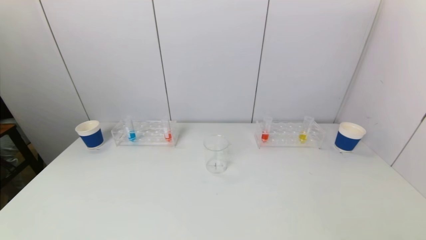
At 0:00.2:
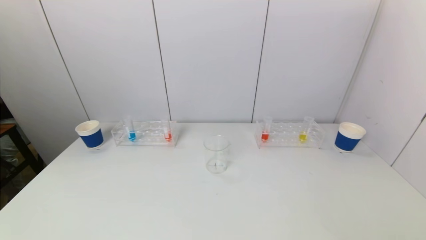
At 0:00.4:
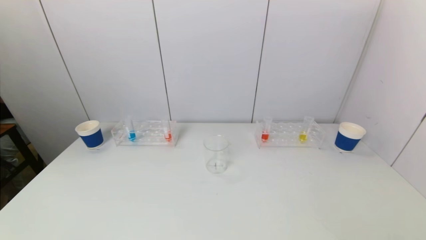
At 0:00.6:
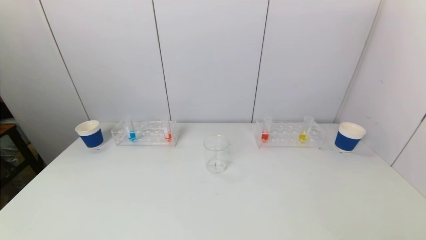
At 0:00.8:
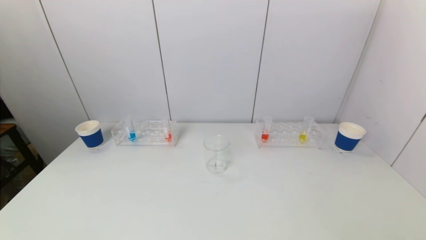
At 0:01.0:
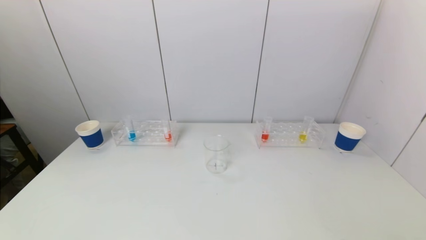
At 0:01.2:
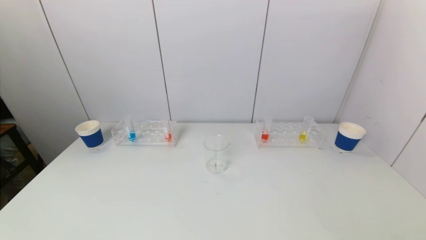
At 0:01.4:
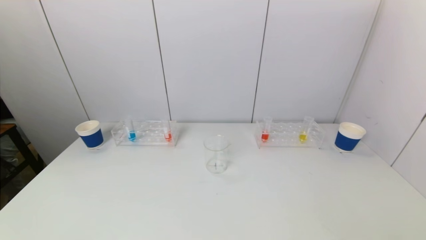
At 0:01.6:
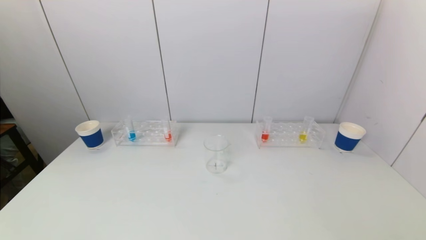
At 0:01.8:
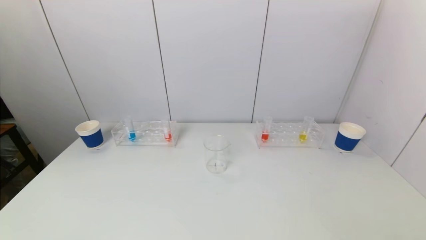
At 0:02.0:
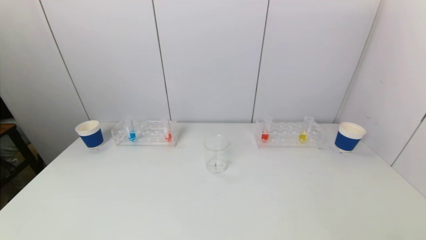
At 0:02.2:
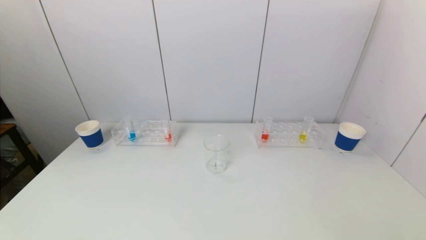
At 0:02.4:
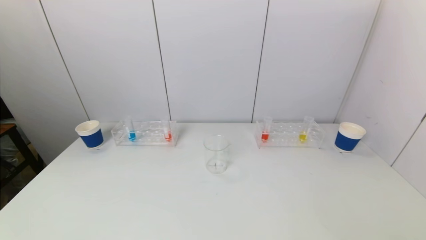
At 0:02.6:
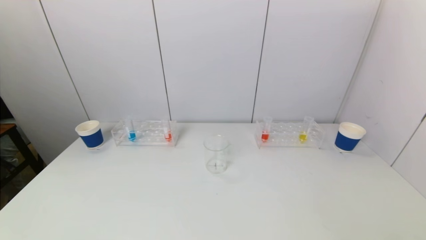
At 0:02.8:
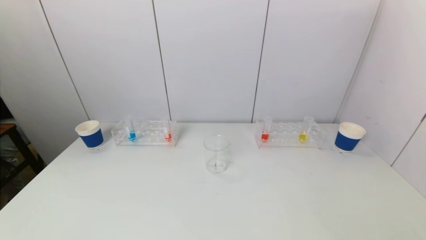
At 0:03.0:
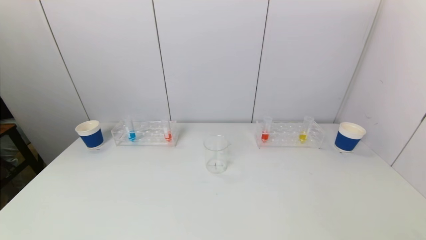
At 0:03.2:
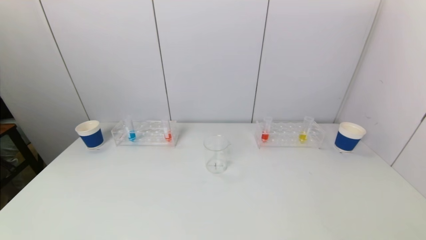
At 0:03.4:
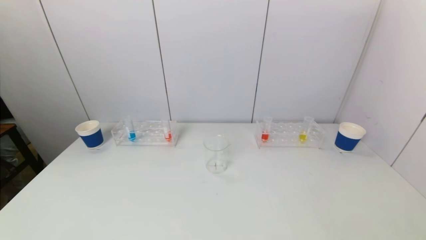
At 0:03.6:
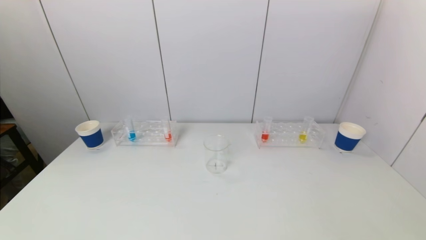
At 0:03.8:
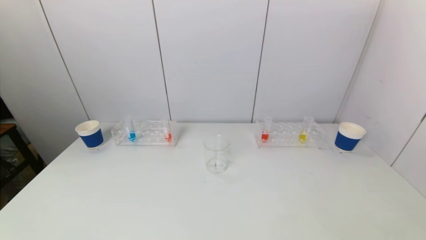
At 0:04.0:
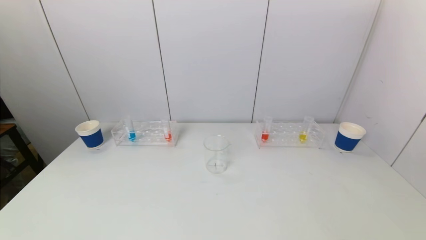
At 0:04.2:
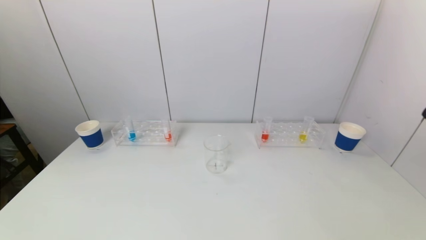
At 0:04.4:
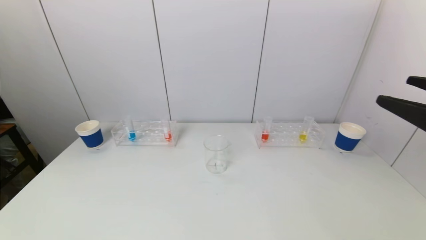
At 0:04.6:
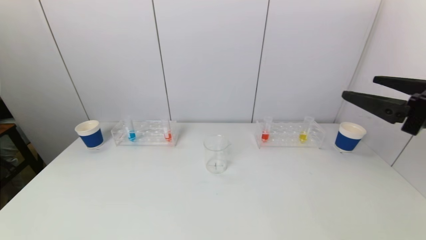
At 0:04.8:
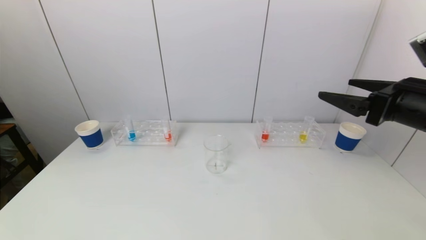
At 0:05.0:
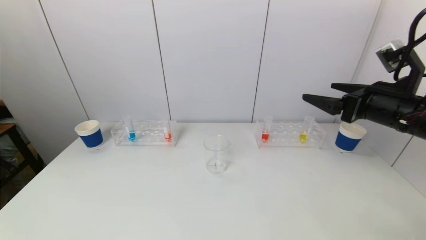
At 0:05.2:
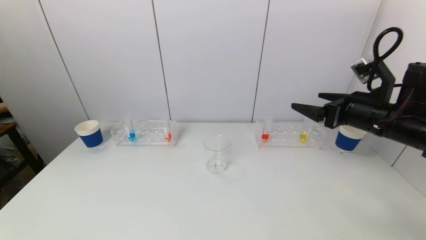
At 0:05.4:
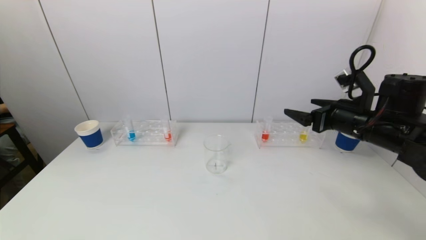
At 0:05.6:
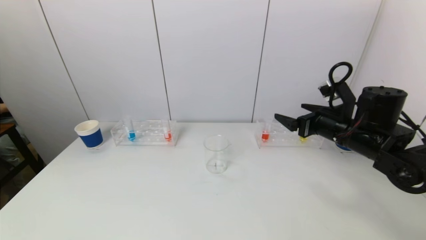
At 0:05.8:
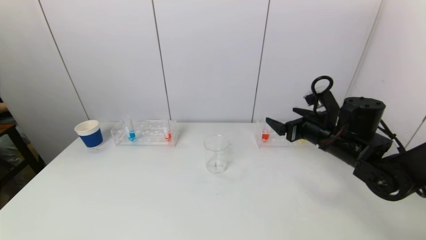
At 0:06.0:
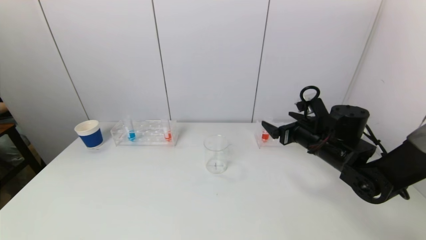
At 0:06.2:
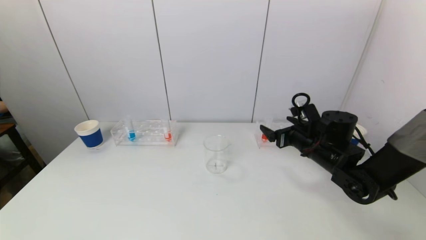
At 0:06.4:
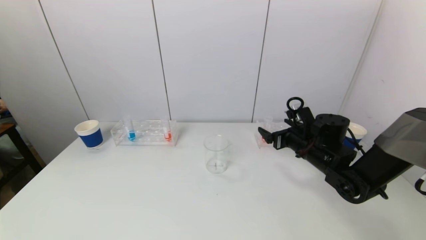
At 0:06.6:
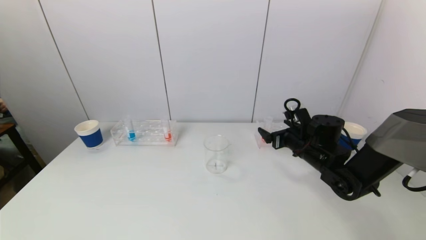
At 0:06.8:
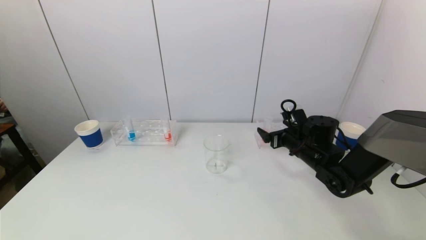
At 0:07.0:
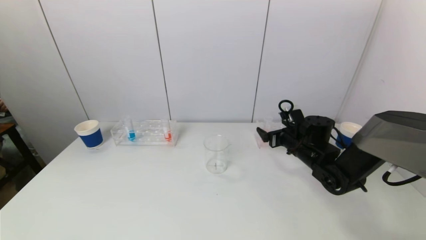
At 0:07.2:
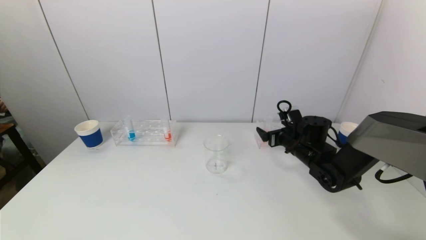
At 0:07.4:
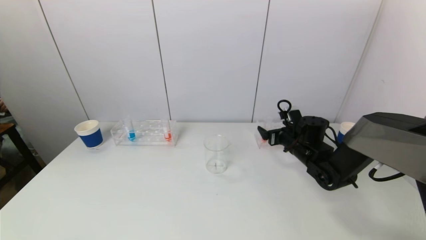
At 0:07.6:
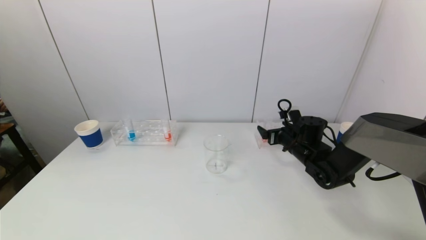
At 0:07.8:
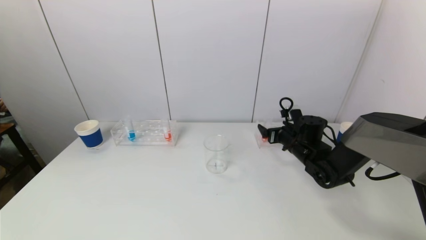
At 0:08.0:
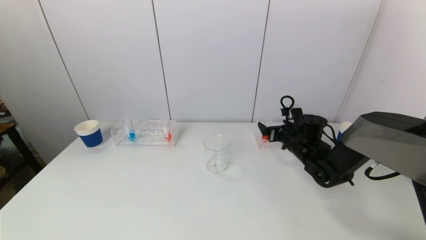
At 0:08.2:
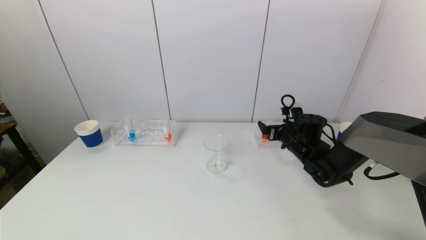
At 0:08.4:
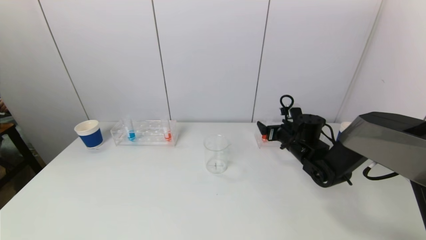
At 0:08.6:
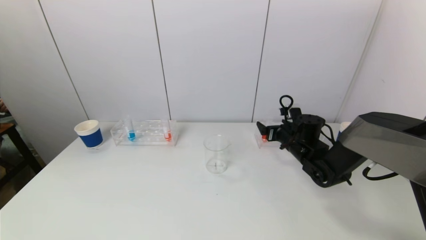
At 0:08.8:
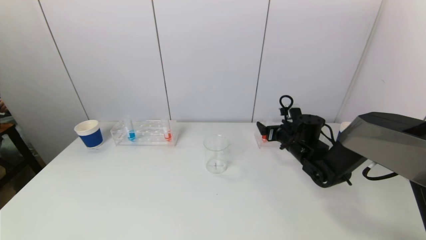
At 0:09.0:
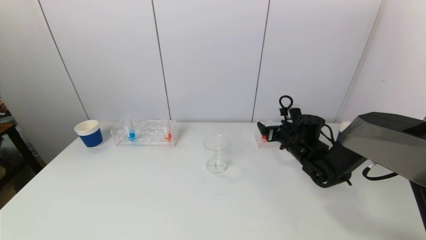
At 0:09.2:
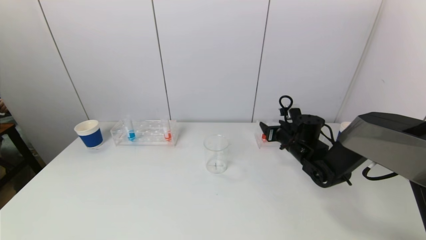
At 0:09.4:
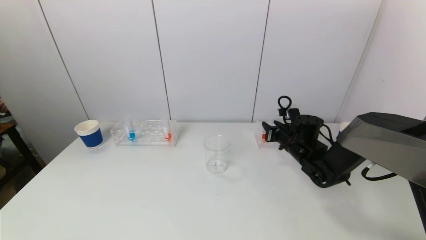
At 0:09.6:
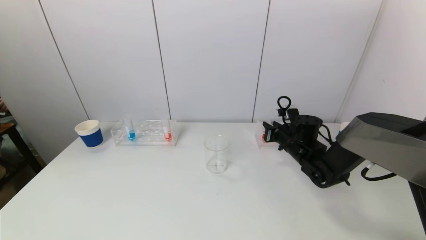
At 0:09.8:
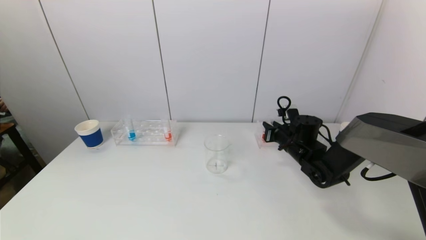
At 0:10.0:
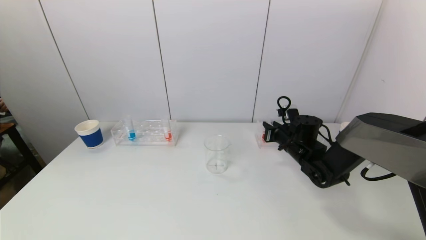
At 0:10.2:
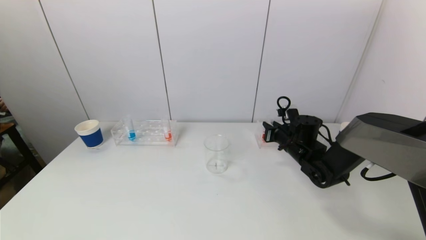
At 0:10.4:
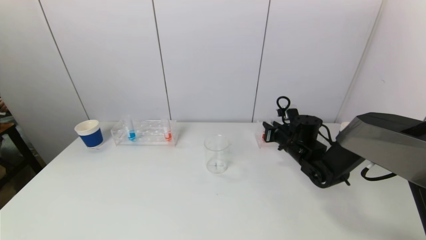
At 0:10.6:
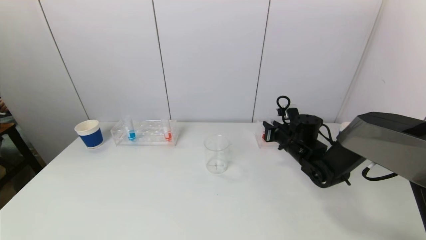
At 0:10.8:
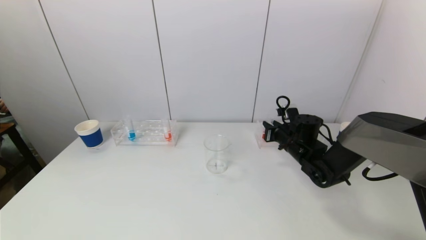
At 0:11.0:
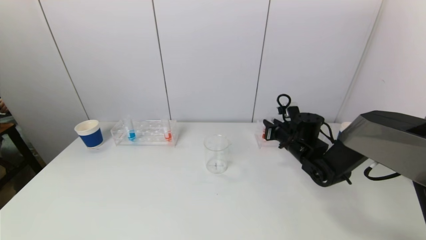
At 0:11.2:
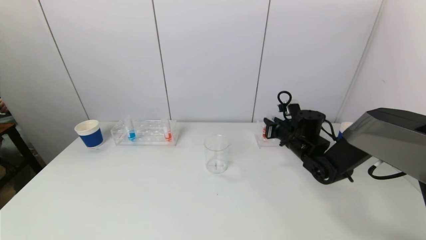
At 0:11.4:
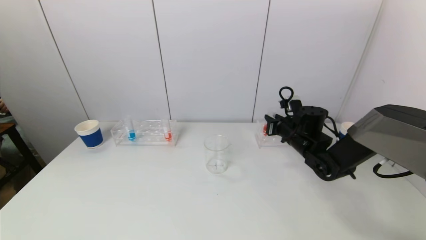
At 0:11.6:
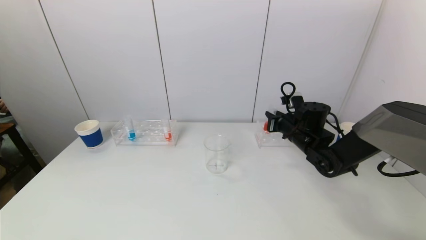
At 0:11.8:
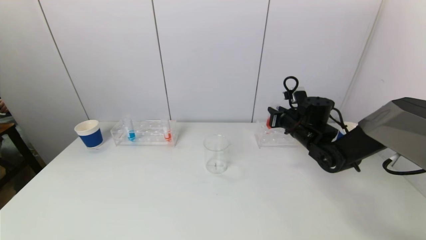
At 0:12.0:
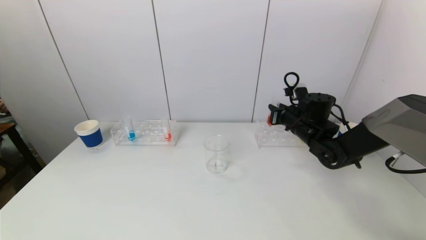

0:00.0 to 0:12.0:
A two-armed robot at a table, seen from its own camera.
Task of the whole recording: pick up a test tube with pigment on left test tube rack and a test tube with pigment on right test tube rack by grippers and pour them into the beaker.
Step, 0:00.0 to 0:09.8: Grasp the red reagent with the right gripper.
0:00.0 to 0:01.6: Neither gripper changes place.
0:03.0 to 0:04.4: The right gripper moves forward and upward, approximately 25 cm.
0:04.4 to 0:06.0: The right gripper travels forward, downward and to the left by about 25 cm.
0:06.0 to 0:07.6: The right gripper is displaced forward and downward by some 10 cm.
0:07.6 to 0:09.0: The grippers stay close to where they were, moving slightly.
0:09.0 to 0:10.4: The right gripper closes up.
0:10.4 to 0:12.0: The right gripper heads upward, covering roughly 5 cm.

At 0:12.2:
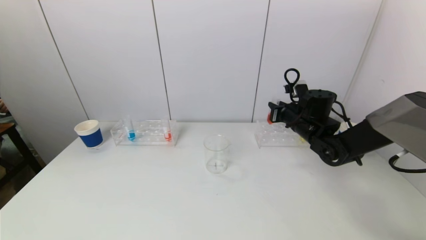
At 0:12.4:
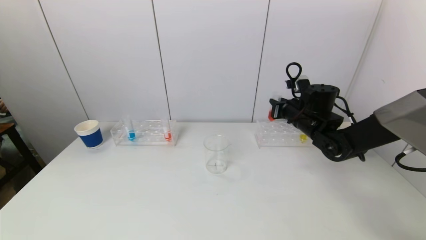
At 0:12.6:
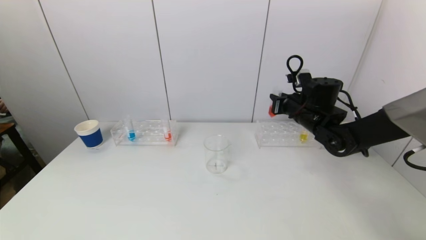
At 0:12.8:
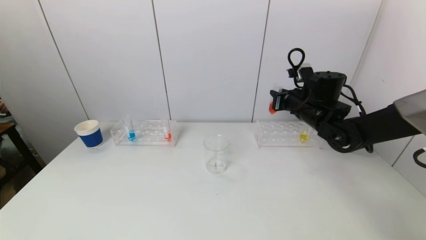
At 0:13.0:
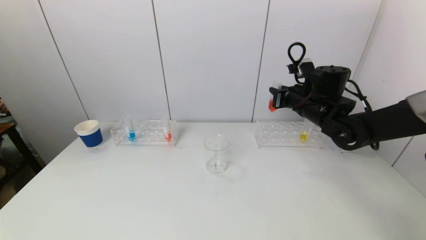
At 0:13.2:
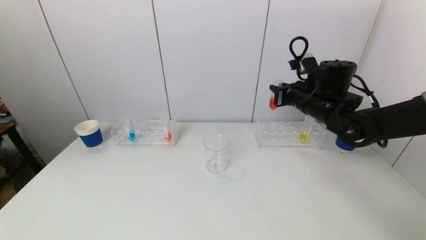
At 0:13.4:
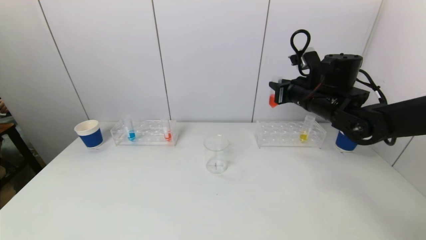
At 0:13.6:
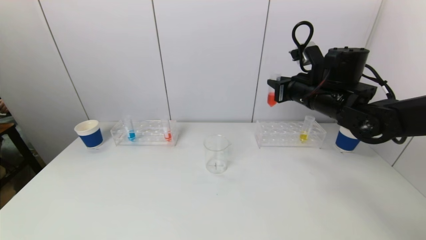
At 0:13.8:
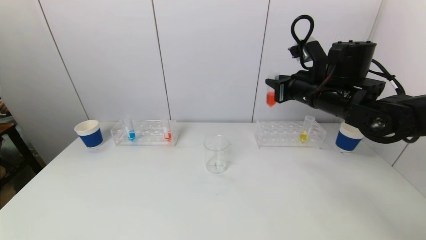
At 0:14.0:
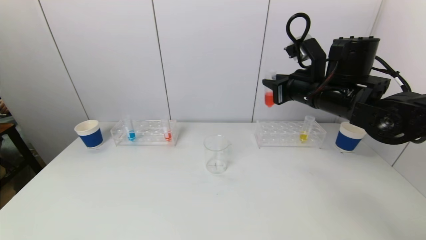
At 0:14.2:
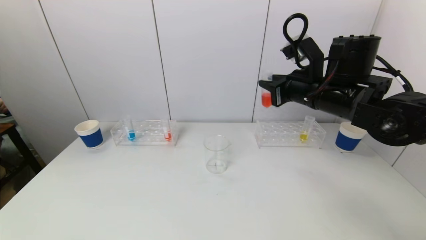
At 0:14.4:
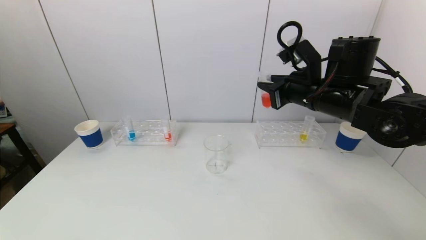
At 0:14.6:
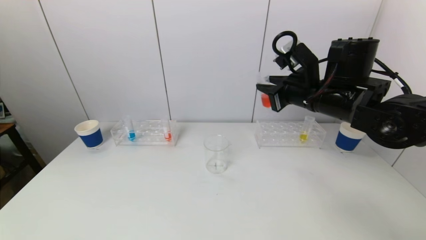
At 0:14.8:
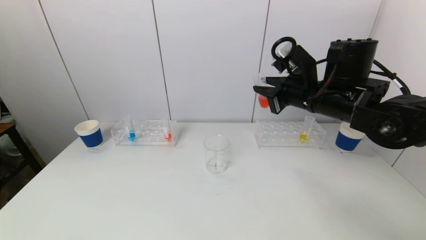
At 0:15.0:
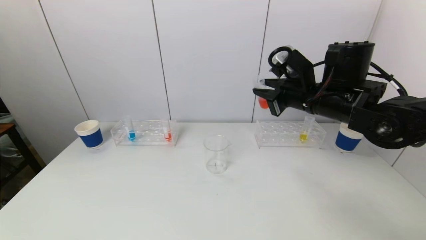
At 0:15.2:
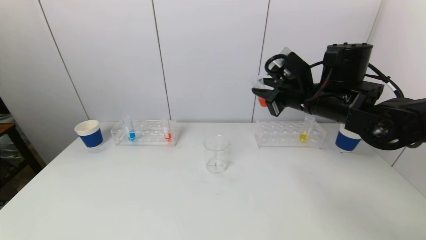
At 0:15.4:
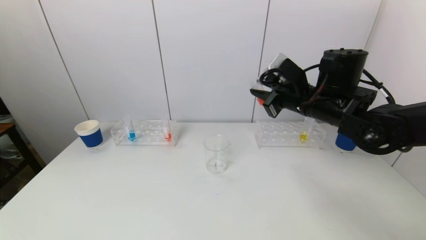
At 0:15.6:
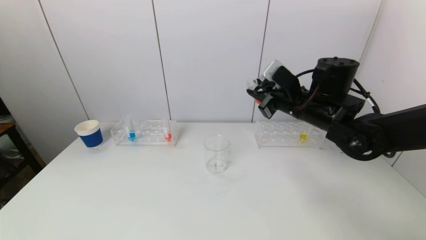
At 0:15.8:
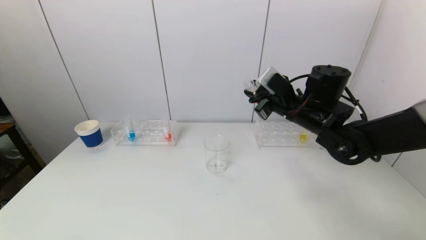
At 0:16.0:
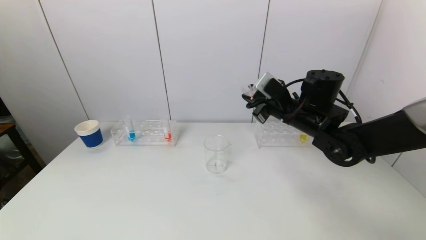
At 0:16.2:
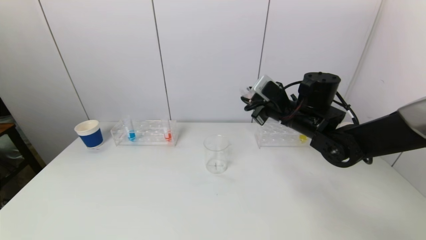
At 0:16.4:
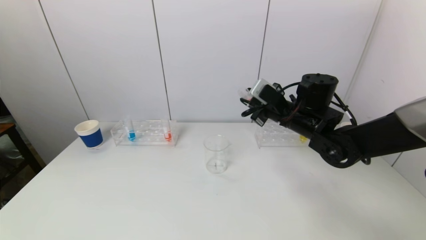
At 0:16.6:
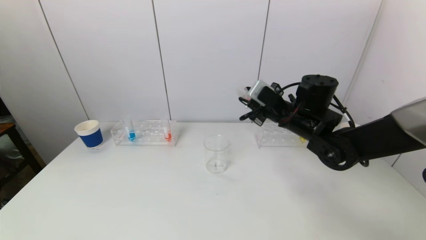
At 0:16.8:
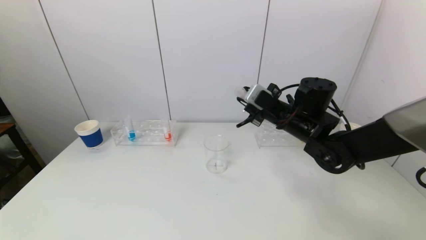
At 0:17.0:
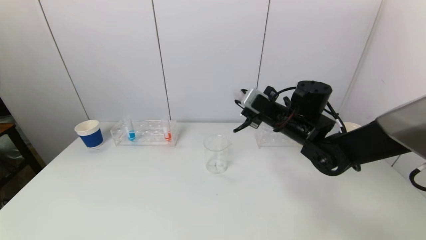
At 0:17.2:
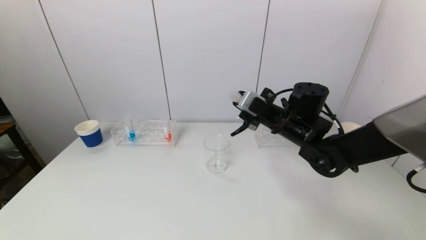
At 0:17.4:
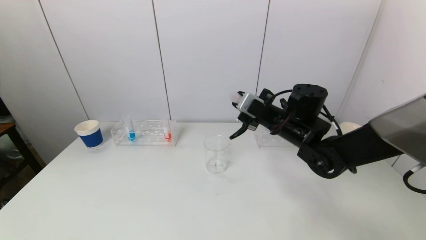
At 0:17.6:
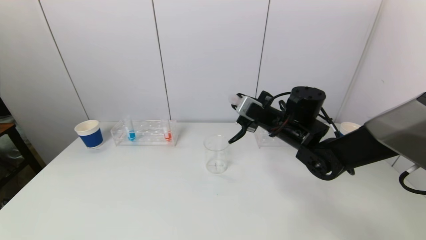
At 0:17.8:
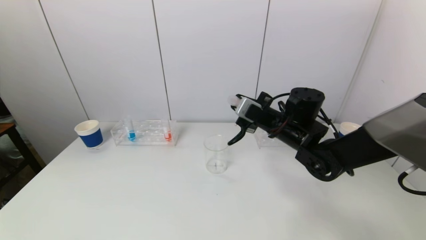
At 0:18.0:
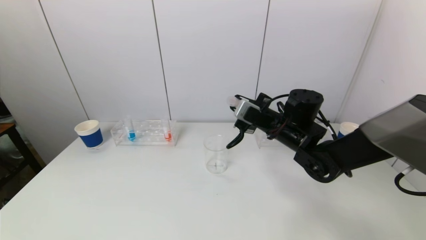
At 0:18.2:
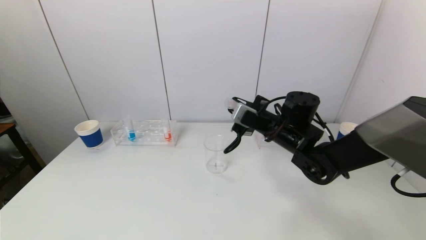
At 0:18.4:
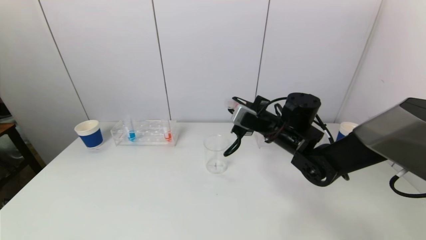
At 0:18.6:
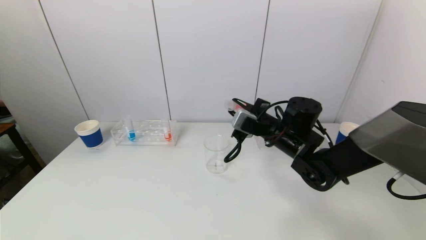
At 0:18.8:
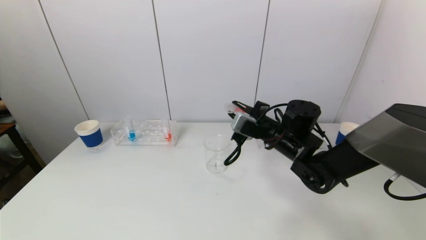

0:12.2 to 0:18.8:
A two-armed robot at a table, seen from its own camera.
Task of the whole recording: pick up a test tube with pigment on left test tube rack and a test tube with pigment on right test tube rack by grippers and pour them into the beaker.
0:12.2 to 0:13.8: The right gripper heads upward and backward, covering about 15 cm.
0:15.4 to 0:17.2: The right gripper shifts roughly 5 cm downward.
0:17.2 to 0:18.8: The grippers make only small movements.